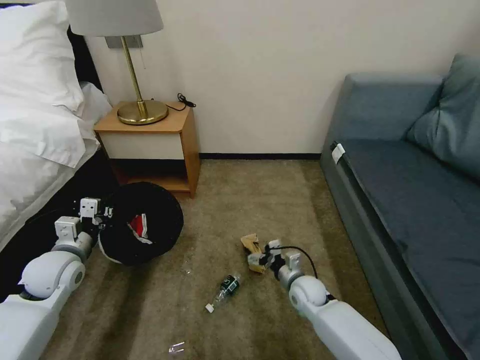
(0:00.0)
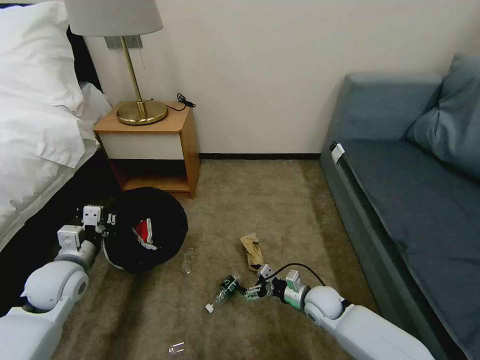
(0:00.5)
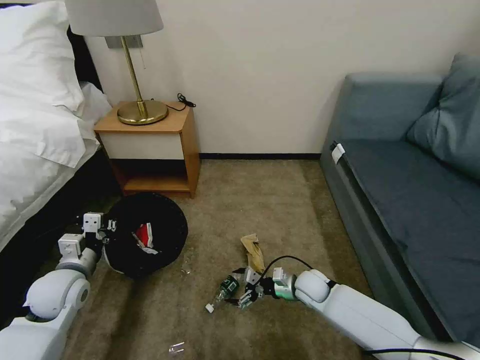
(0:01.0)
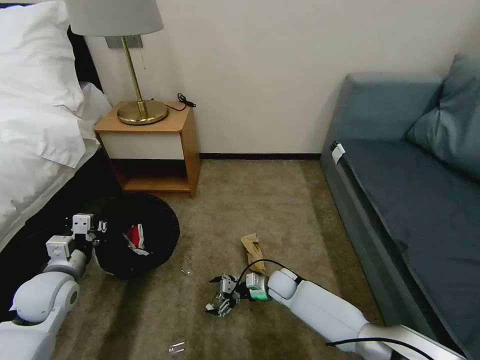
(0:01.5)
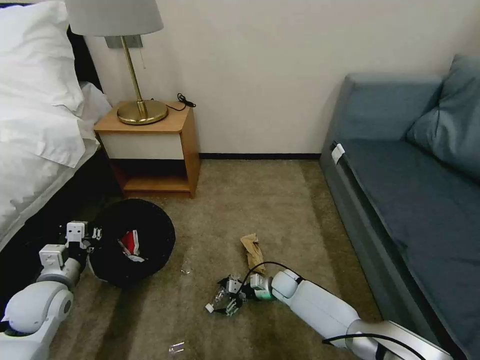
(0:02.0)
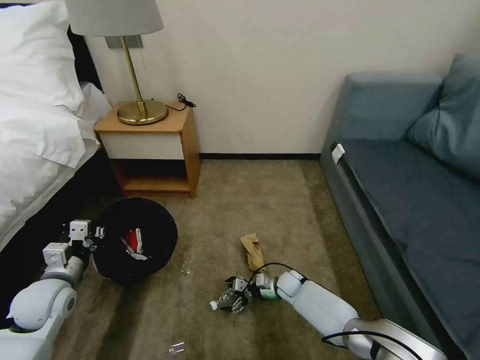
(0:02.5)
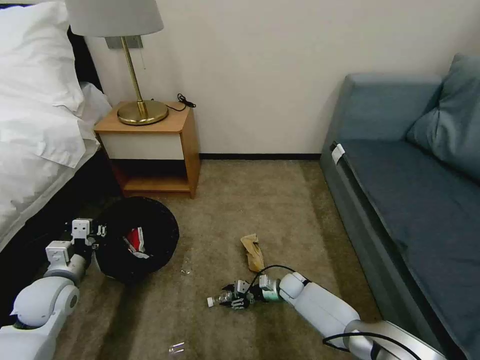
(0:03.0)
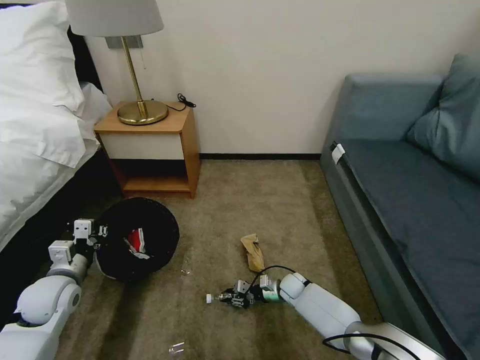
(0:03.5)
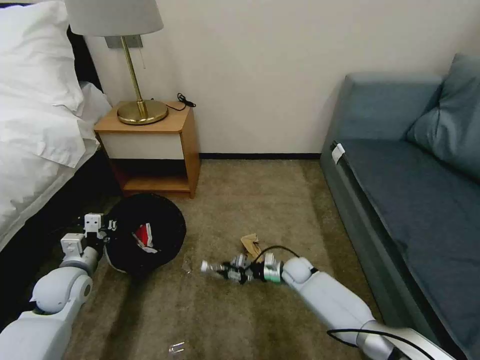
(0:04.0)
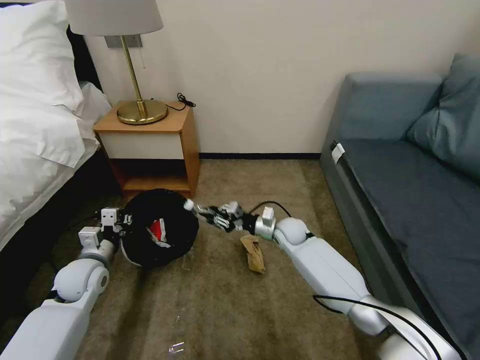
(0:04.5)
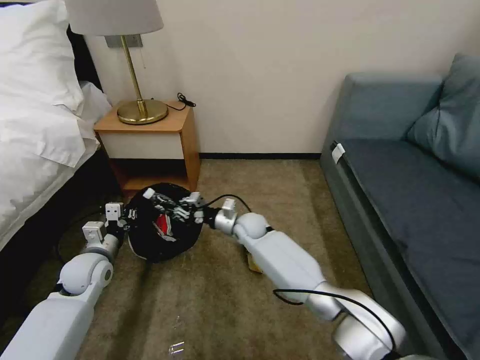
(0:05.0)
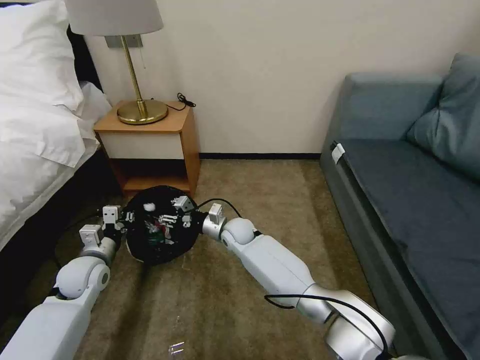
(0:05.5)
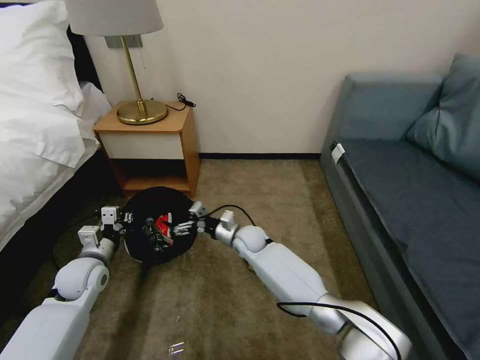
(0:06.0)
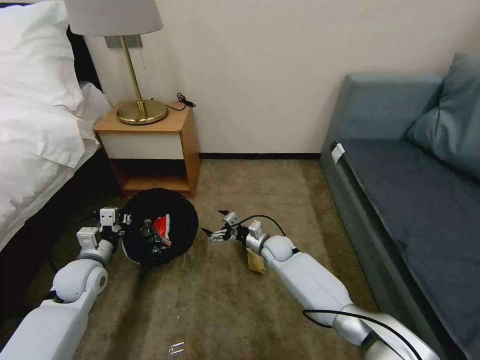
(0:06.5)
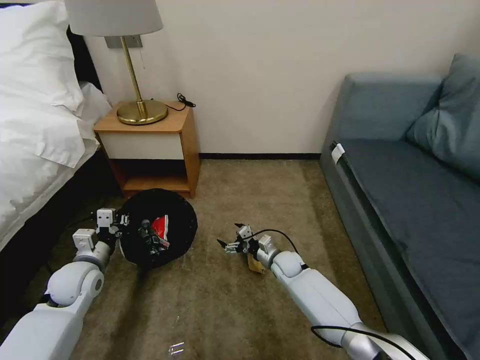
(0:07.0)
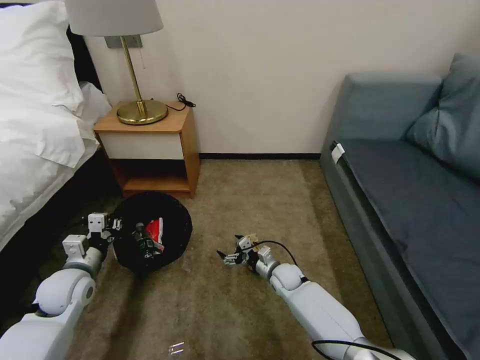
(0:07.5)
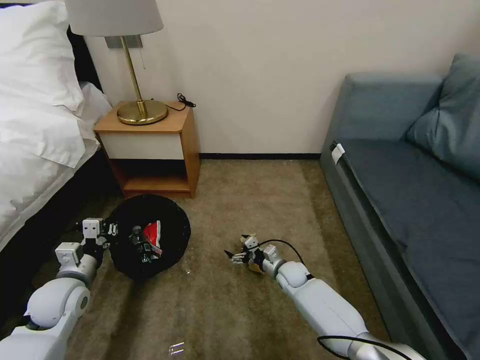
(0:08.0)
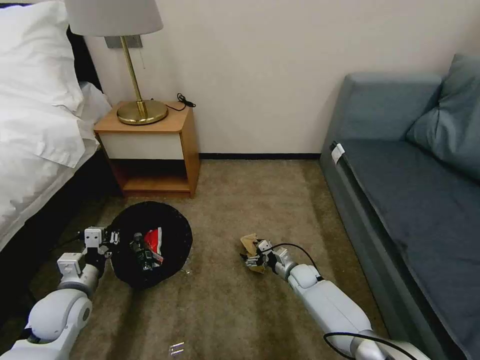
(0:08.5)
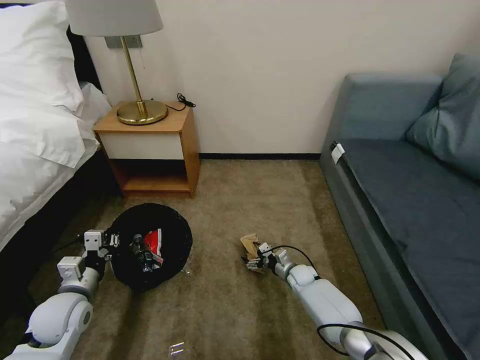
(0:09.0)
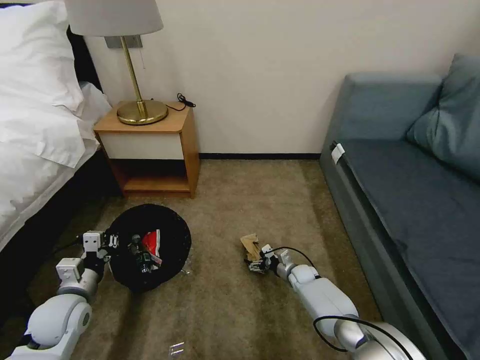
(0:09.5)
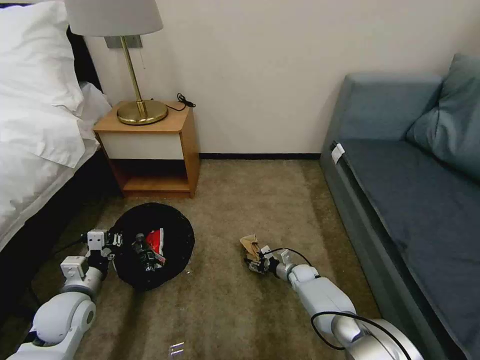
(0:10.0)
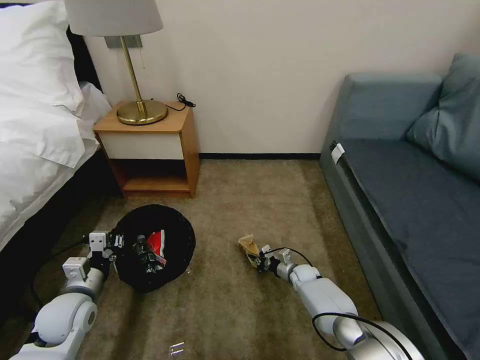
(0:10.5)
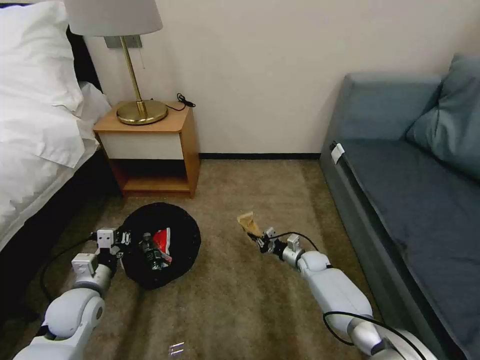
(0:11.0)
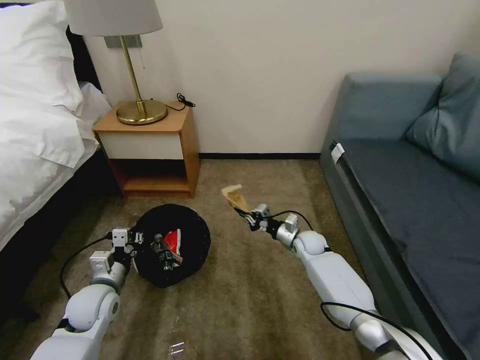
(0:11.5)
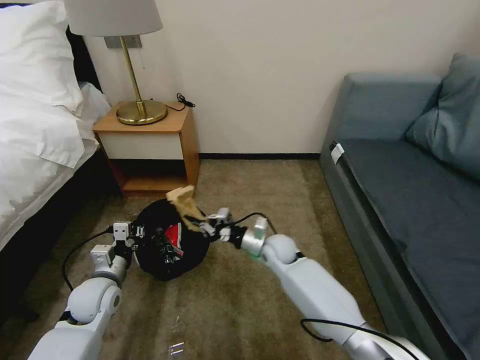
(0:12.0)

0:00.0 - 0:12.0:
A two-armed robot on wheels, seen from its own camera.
Task of the whole recording: Pick up the trash bin, then pick up the garbage on the floor and place it into the trash bin.
0:00.0 - 0:02.0: The right gripper goes approximately 10 cm downward, while the left gripper goes approximately 5 cm backward.
0:02.0 - 0:04.0: The right gripper shifts by roughly 5 cm, and closes up.
0:04.0 - 0:06.0: The right gripper is displaced to the left and upward by approximately 20 cm, and opens its fingers.
0:06.0 - 0:08.0: The left gripper moves backward, some 5 cm. The right gripper heads to the right, downward and backward, covering about 20 cm.
0:08.0 - 0:10.0: The right gripper moves downward and to the right, roughly 10 cm, and closes.
0:10.0 - 0:12.0: The left gripper shifts by some 5 cm; the right gripper moves upward and to the left, roughly 25 cm, and closes up.

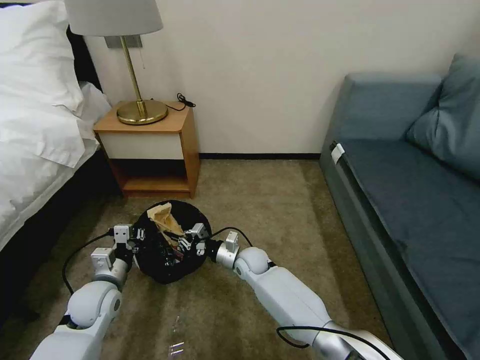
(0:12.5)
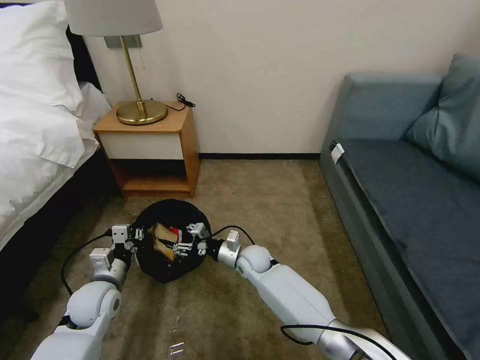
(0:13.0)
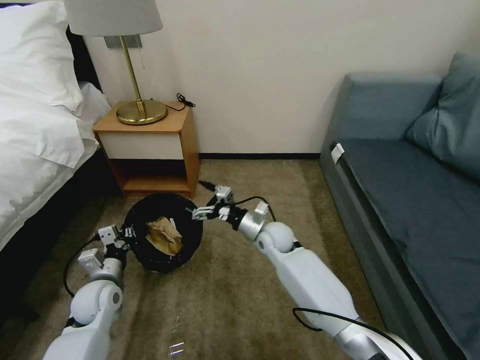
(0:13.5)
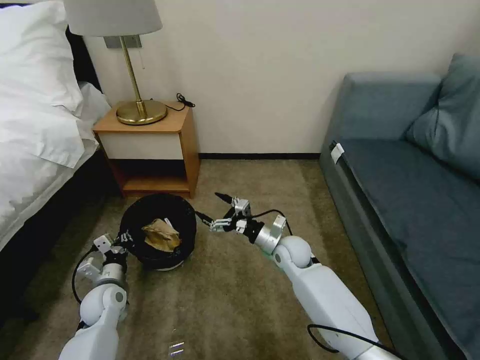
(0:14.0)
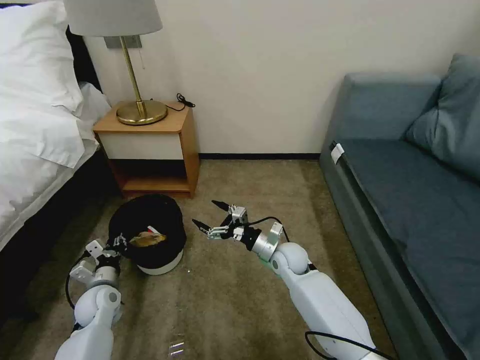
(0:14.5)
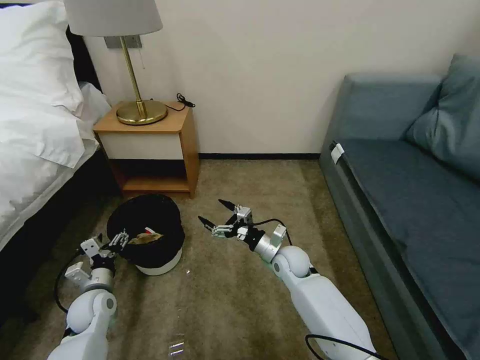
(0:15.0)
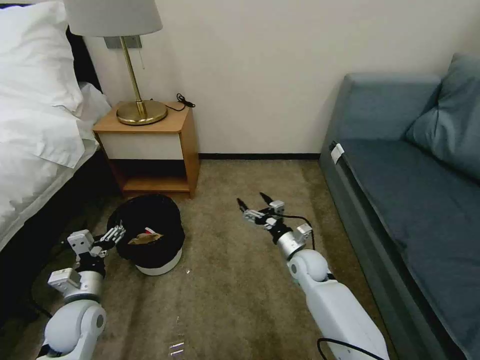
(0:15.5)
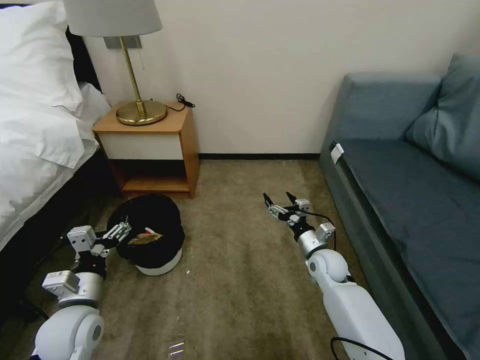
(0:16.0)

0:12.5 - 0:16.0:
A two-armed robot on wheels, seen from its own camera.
Task of the whole recording: Pick up the trash bin, then pick up the garbage on the floor and place it into the trash bin.
0:12.5 - 0:14.5: The left gripper shifts approximately 5 cm downward; the right gripper heads to the right and upward, covering approximately 10 cm, and opens its fingers.
0:14.5 - 0:16.0: The left gripper shifts approximately 15 cm upward and backward, and opens its fingers. The right gripper moves to the right, some 10 cm.

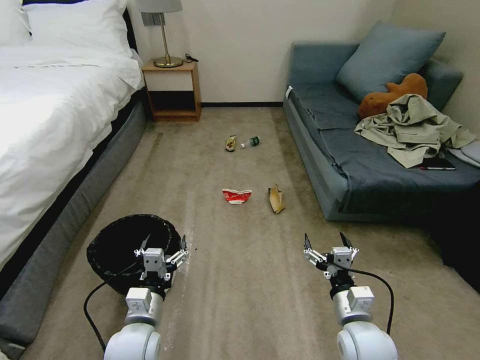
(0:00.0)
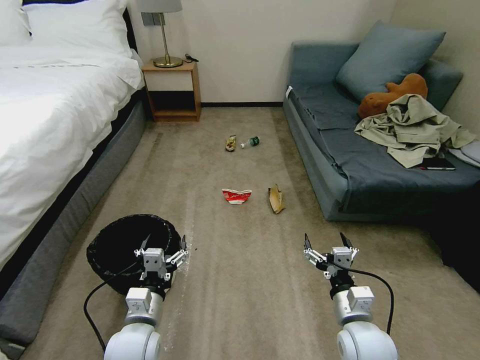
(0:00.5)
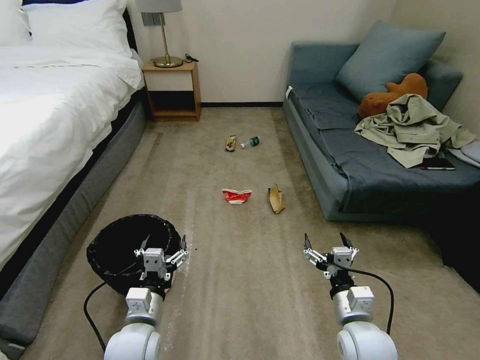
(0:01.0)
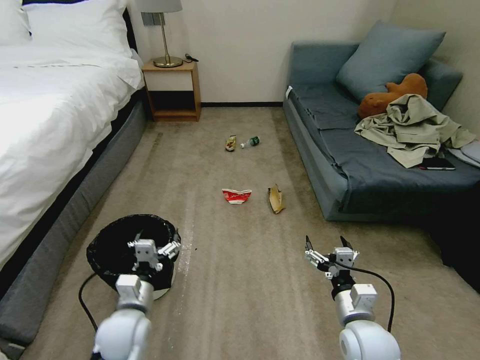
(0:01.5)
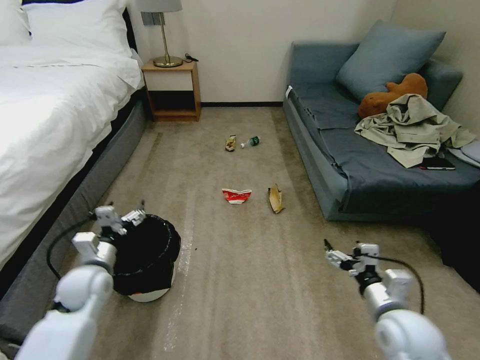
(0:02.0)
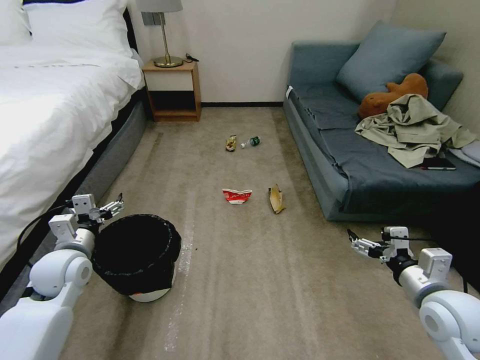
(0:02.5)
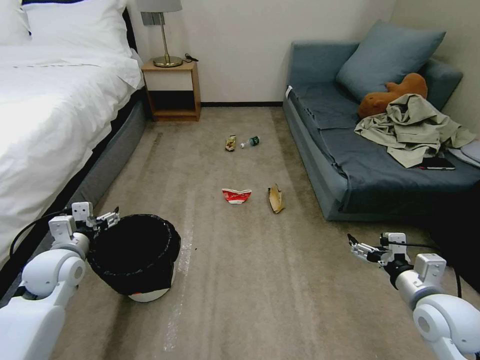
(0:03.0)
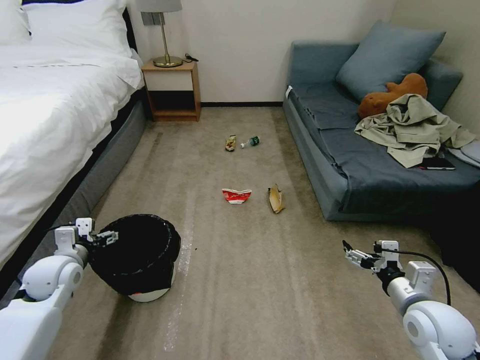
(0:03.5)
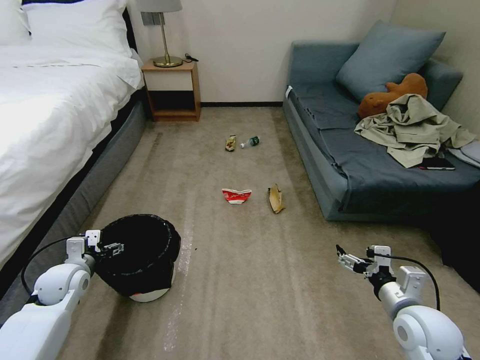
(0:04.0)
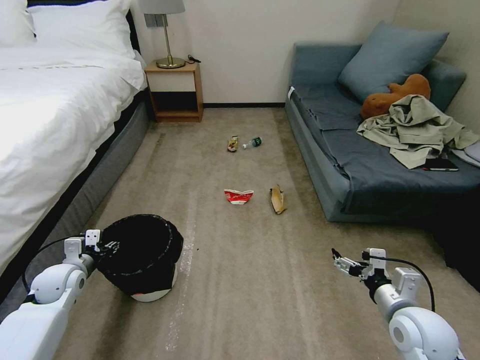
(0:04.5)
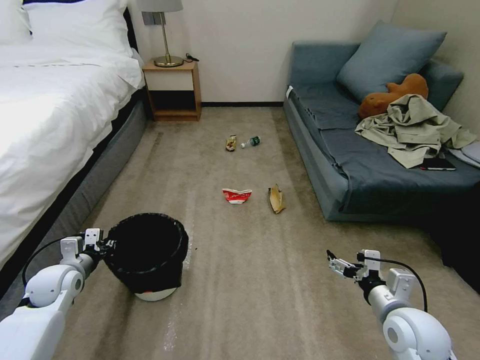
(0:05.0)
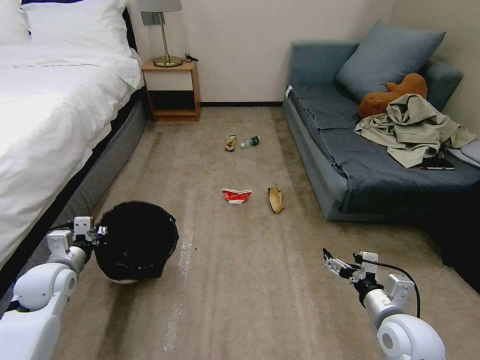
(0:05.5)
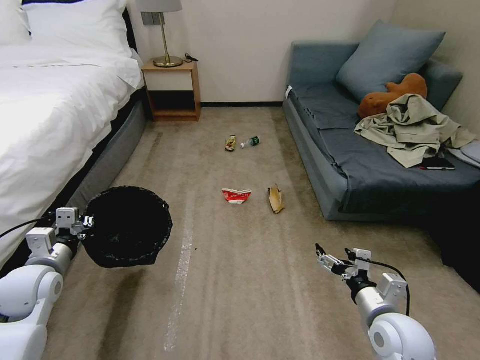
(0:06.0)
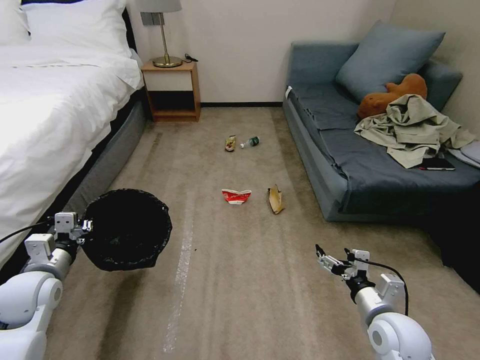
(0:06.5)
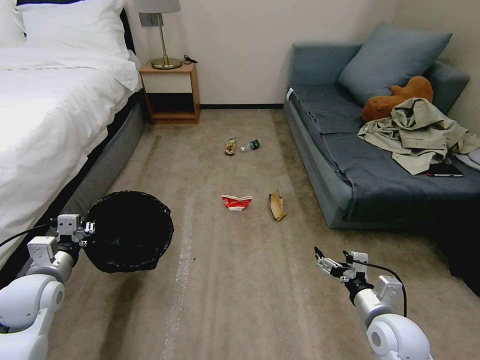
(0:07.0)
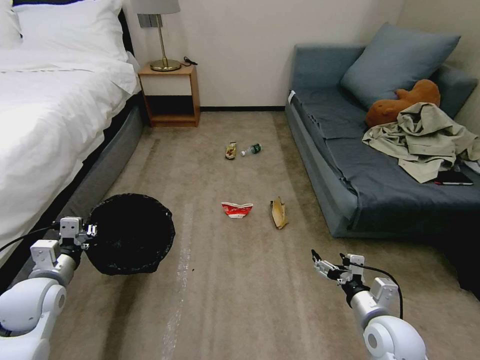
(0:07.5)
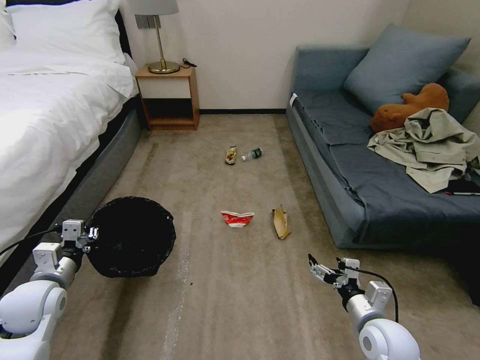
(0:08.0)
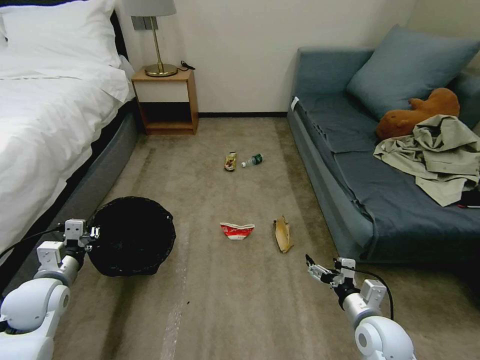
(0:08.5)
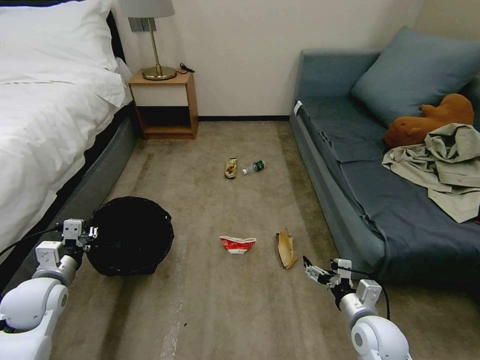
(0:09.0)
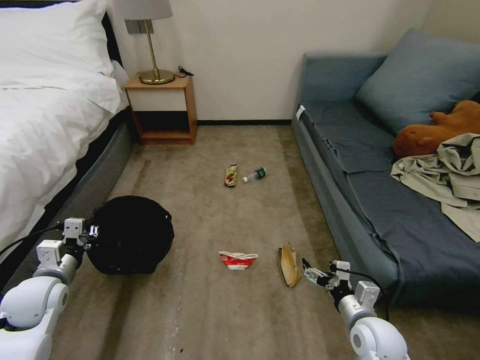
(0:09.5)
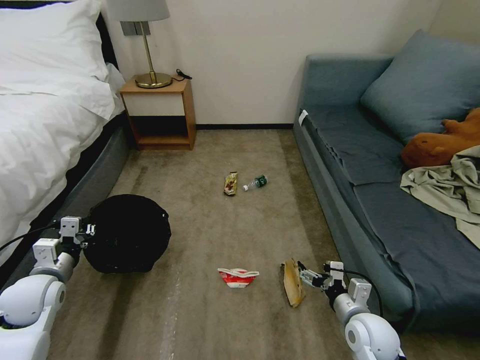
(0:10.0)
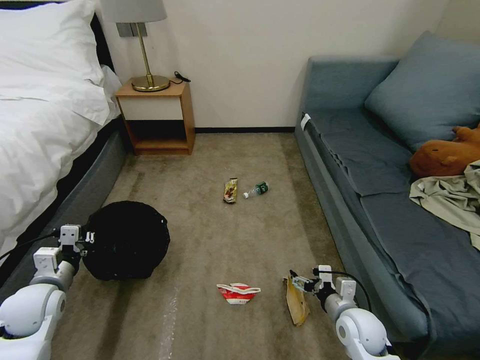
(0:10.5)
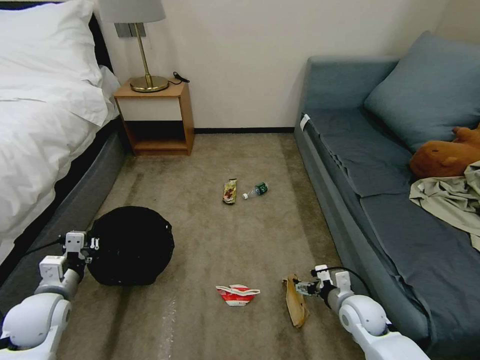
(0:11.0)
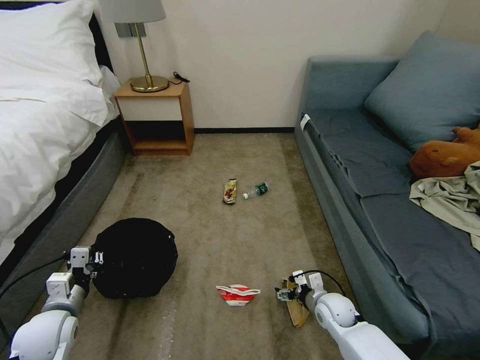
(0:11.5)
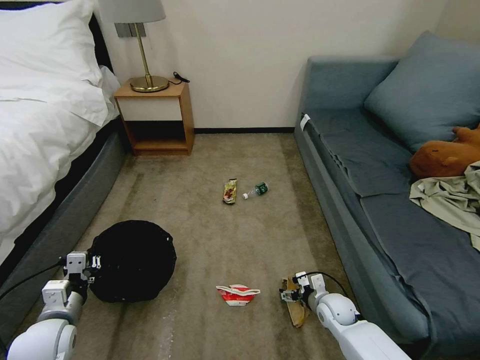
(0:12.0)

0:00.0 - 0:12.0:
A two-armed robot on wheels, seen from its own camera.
Task of the whole recording: Pick up the trash bin, then pick up the garbage on the floor and place it into the trash bin.
0:02.0 - 0:04.0: The left gripper travels to the left by roughly 5 cm, and moves approximately 5 cm upward and comes back.
0:04.0 - 0:06.0: The right gripper shifts by about 5 cm, while the left gripper travels upward by about 10 cm, and closes its fingers.
0:10.0 - 0:12.0: The left gripper goes approximately 5 cm backward; the right gripper shifts approximately 15 cm downward and forward.
